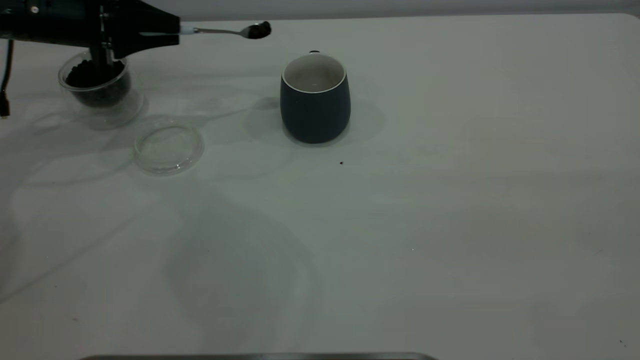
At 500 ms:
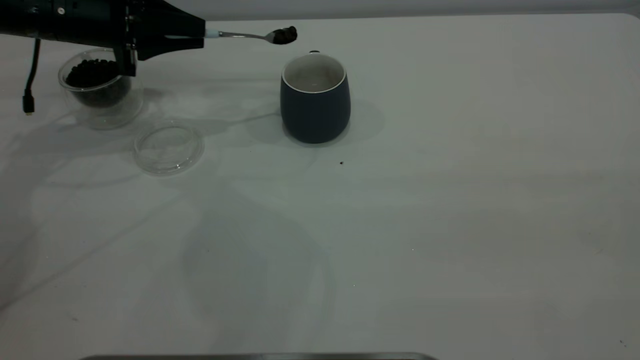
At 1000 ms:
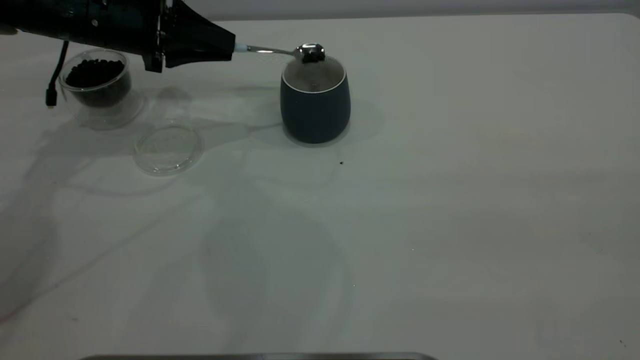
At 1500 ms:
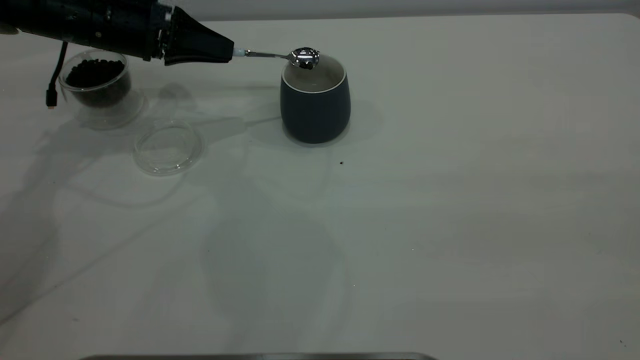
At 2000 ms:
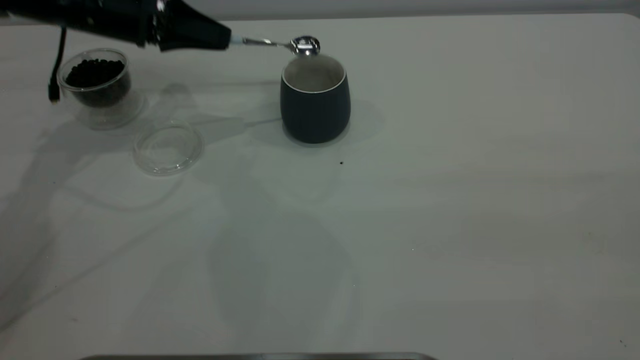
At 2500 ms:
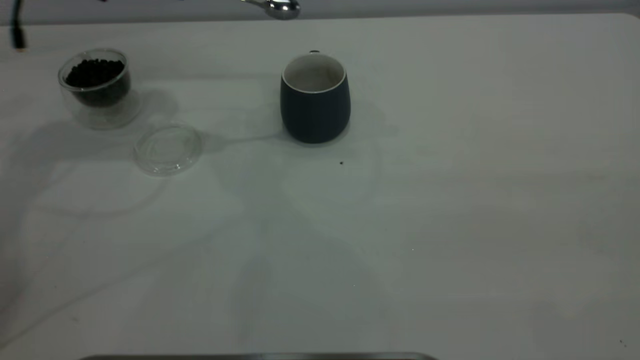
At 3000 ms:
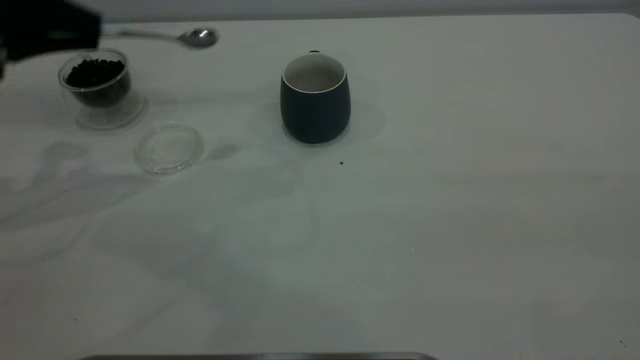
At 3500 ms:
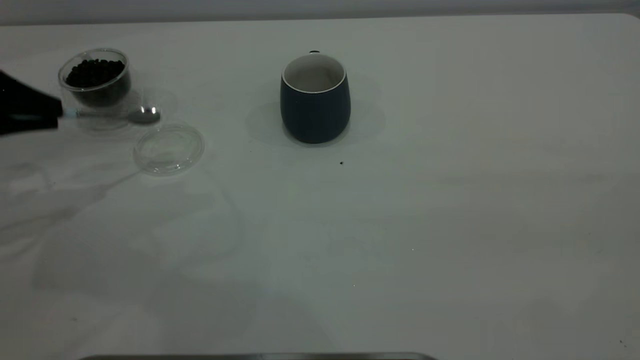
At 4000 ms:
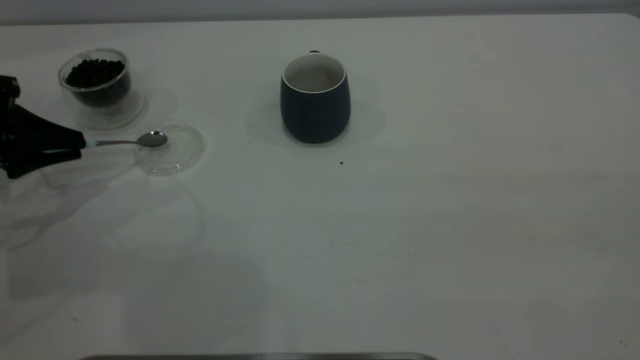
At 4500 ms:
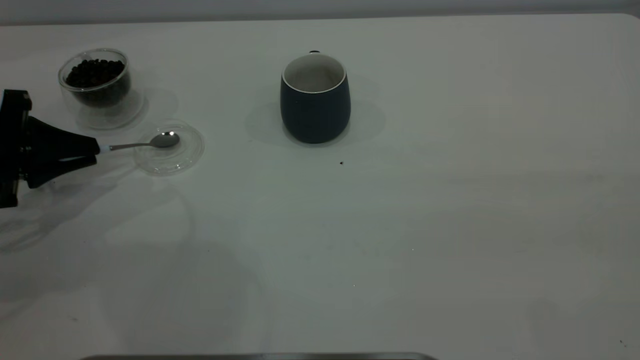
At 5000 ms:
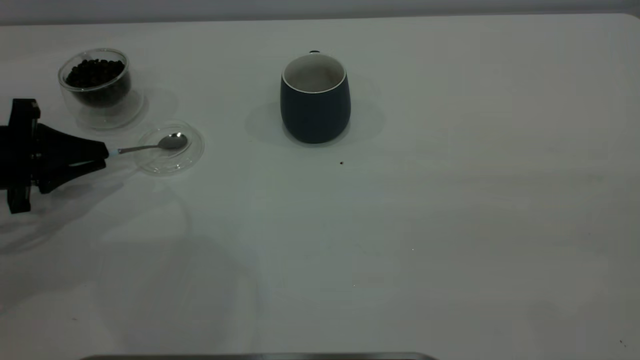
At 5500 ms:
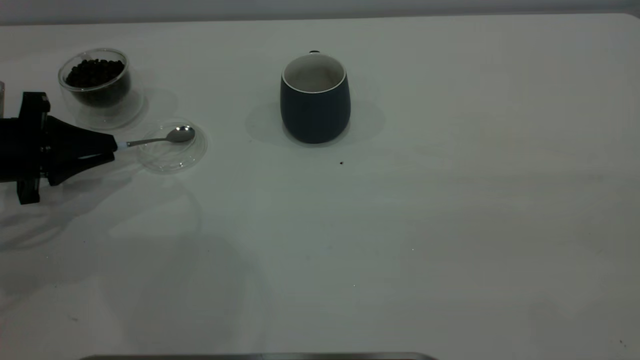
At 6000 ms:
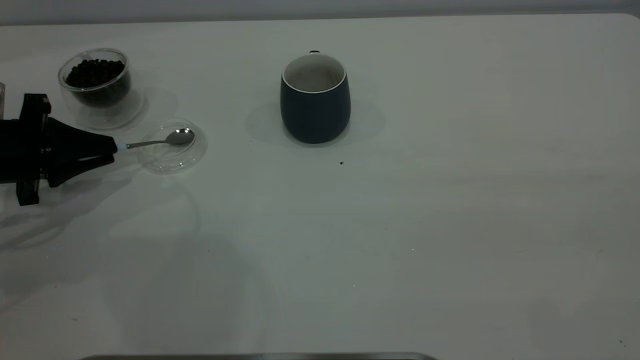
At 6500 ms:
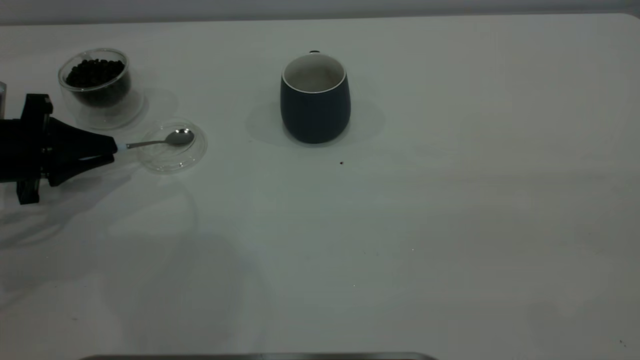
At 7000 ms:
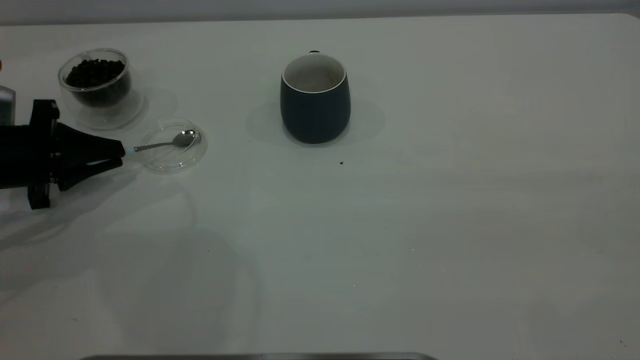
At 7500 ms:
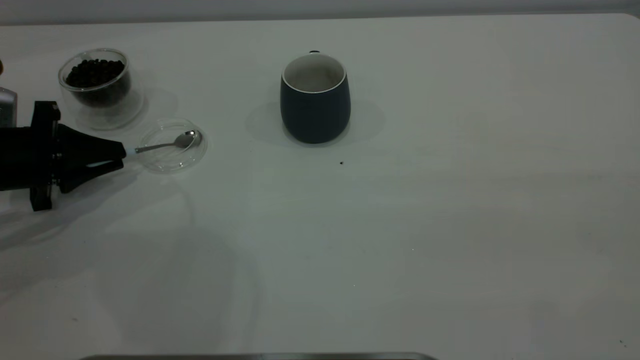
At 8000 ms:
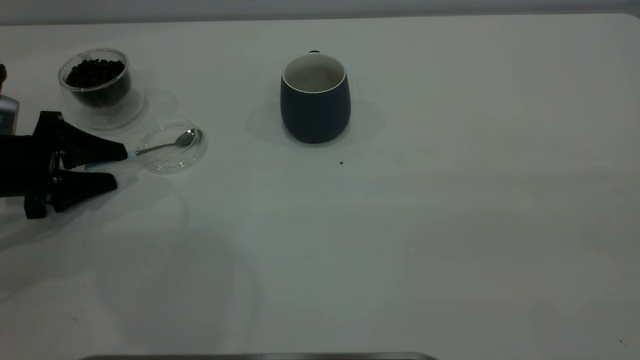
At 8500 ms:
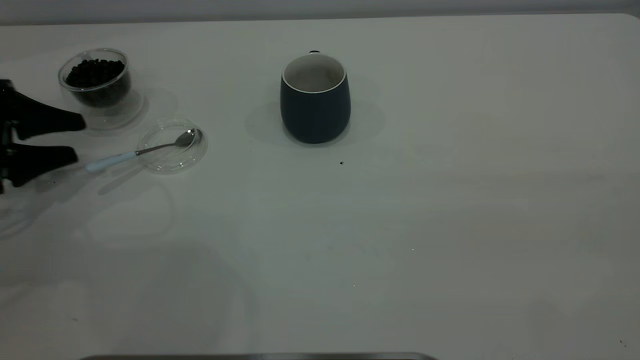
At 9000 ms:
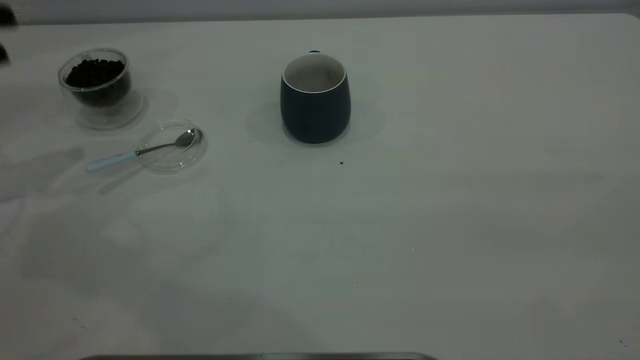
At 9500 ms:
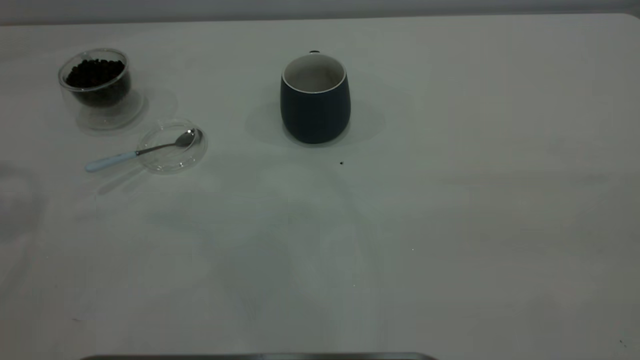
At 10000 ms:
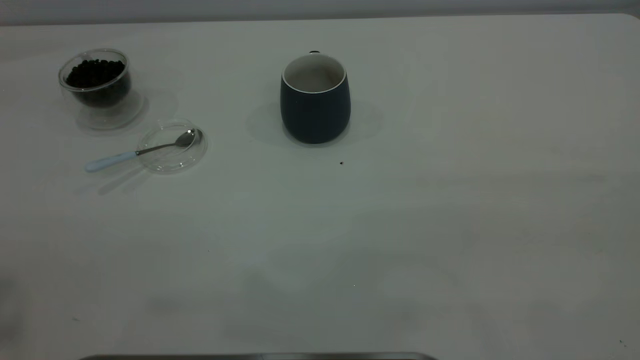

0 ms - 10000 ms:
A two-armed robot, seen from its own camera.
Task of the whole recording: the right gripper place the grey cup in the center of the table, the left gripper take the blue spoon from the cup lid and scoop out the coffee beans from the coffee cup and put them into the grey cup, the left gripper put the spoon back into the cup lid.
Step, 0 ms - 2000 ms: Scoop a spoonful of beans into the cup.
Step, 2500 ms - 8500 ms: Place the spoon back in its original place.
0 ms - 2000 ms: The left gripper is displaced to the right by approximately 5 cm.
2000 ms - 4000 ms: The left gripper heads backward, to the left and downward, covering about 20 cm.
4000 ms - 6000 ms: The grippers stay close to where they were, moving slightly.
6000 ms - 8000 ms: The left gripper opens its fingers.
8000 ms - 10000 ms: The left gripper moves upward, roughly 50 cm.

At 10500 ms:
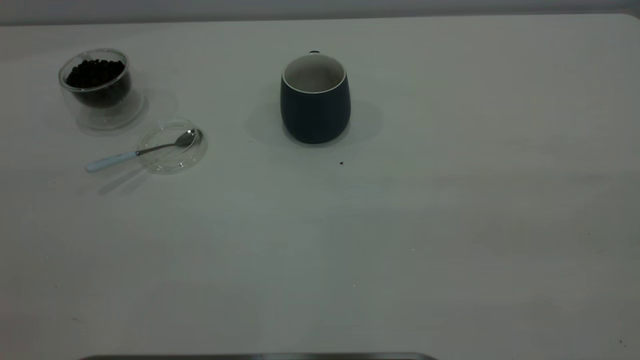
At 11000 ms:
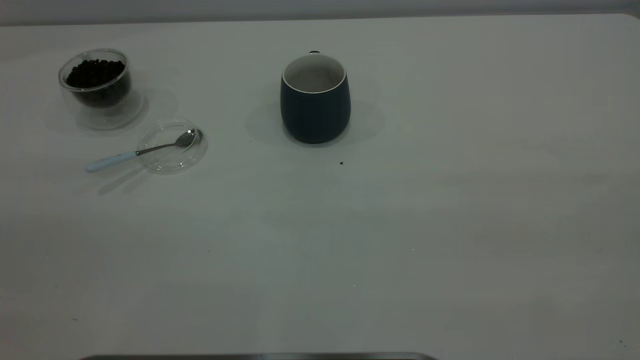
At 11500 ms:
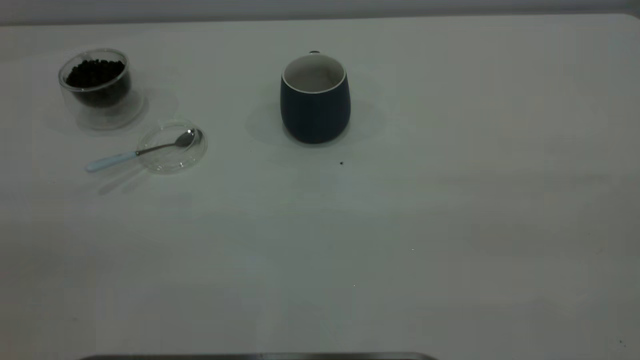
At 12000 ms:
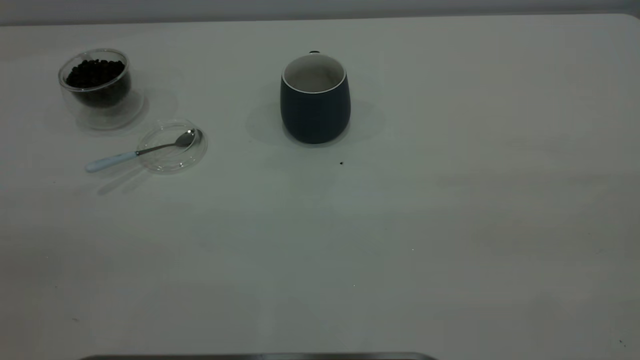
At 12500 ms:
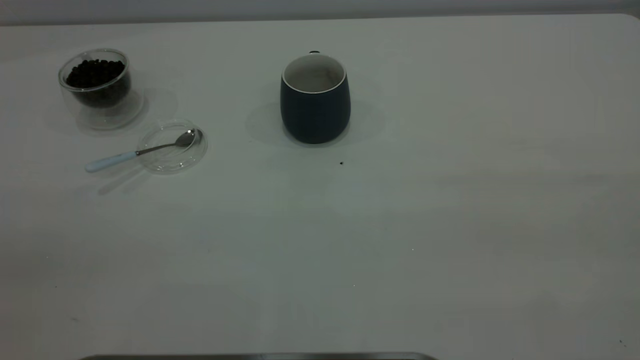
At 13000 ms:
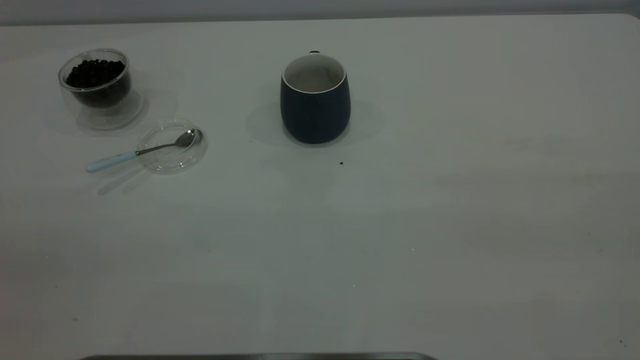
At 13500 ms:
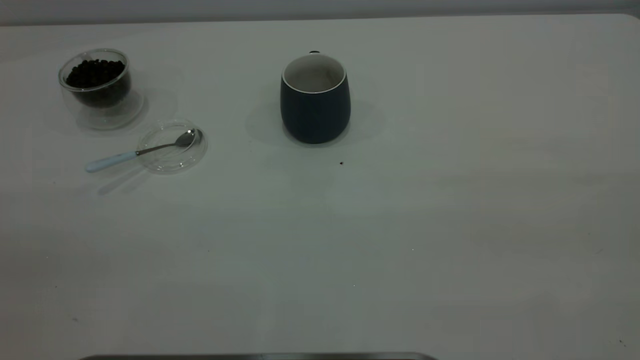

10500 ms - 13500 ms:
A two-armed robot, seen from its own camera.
Task of the whole recording: the right gripper place the grey cup in the center of the table, the left gripper take the blue spoon from the cup lid and scoop out the coffee beans from the coffee cup and put them into the grey cup, the left gripper put the spoon back into the cup lid.
12000 ms - 13500 ms: Both grippers stay about where they are.

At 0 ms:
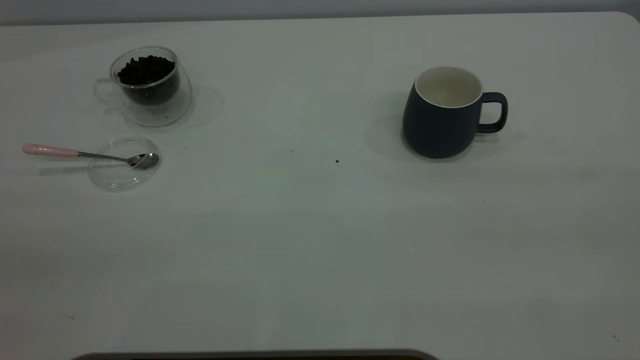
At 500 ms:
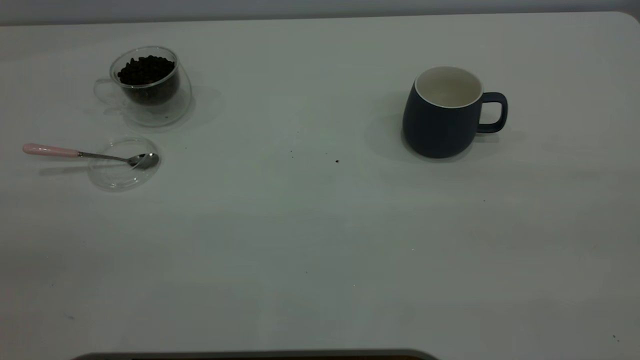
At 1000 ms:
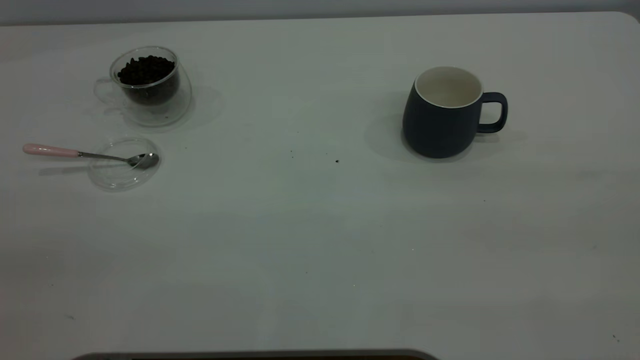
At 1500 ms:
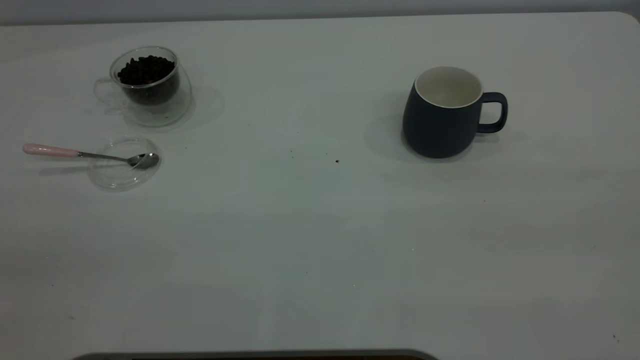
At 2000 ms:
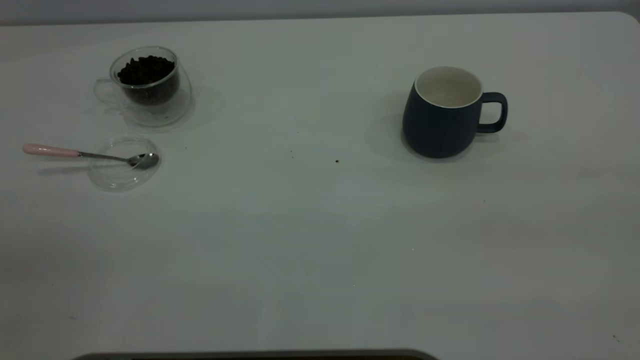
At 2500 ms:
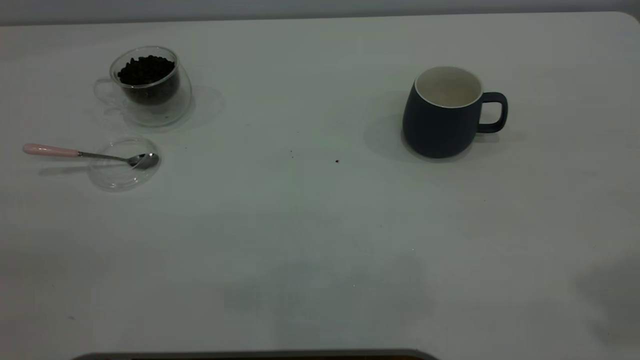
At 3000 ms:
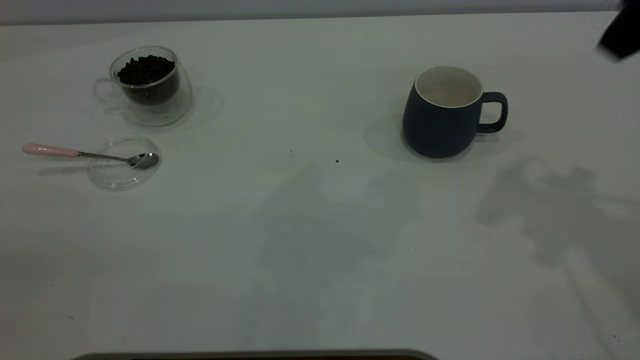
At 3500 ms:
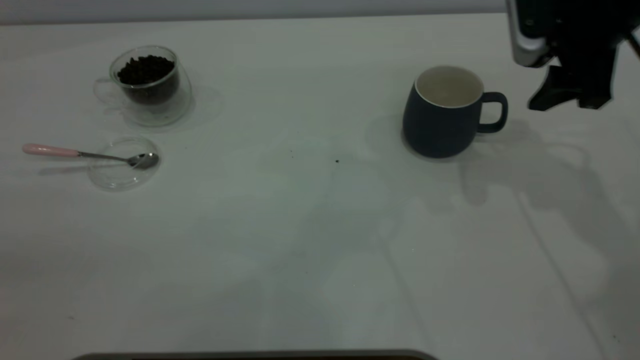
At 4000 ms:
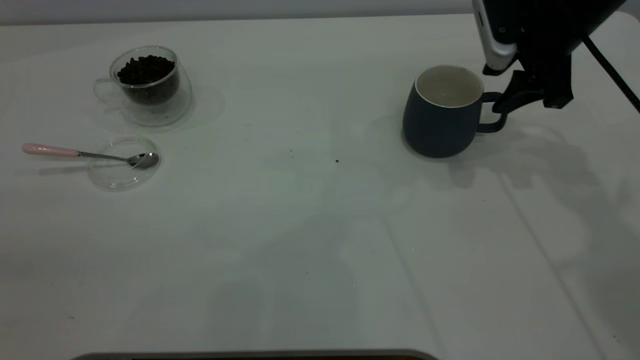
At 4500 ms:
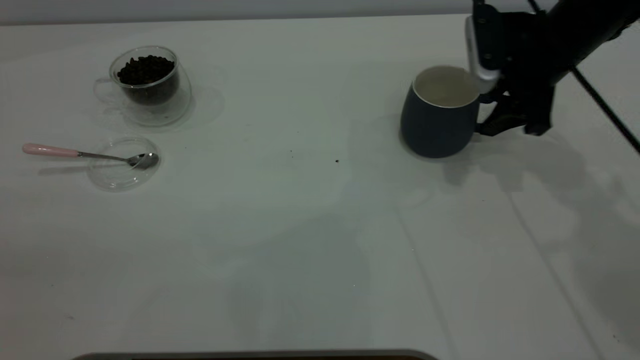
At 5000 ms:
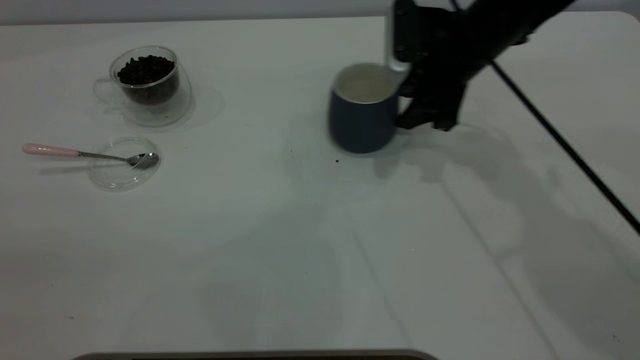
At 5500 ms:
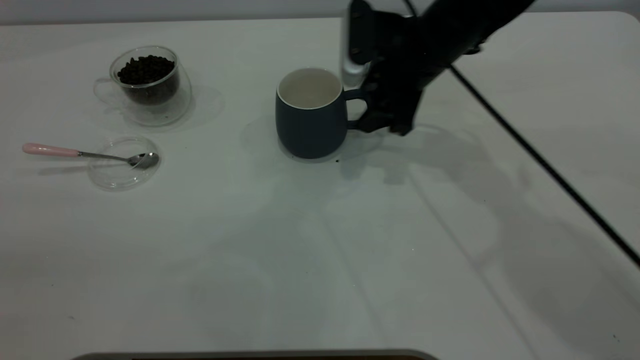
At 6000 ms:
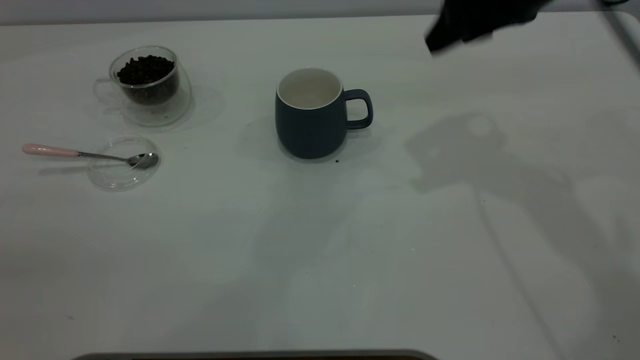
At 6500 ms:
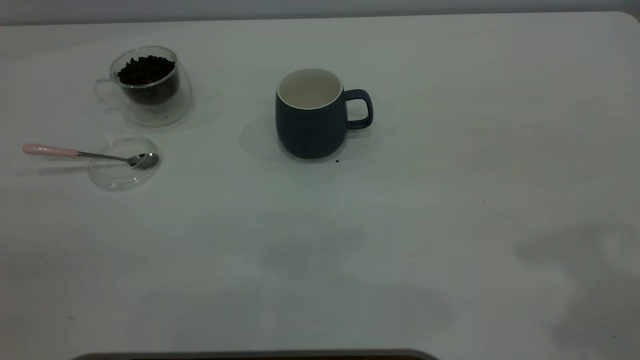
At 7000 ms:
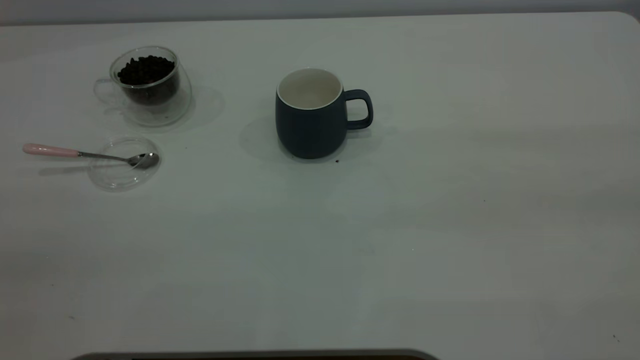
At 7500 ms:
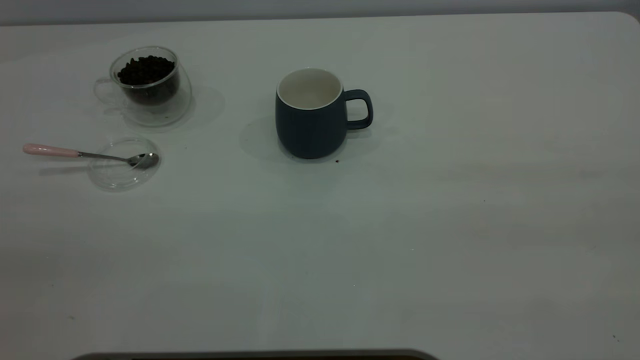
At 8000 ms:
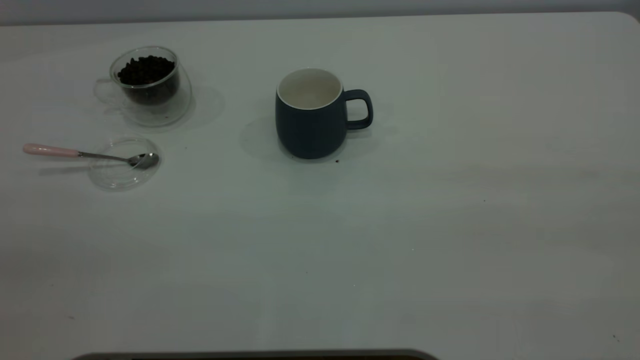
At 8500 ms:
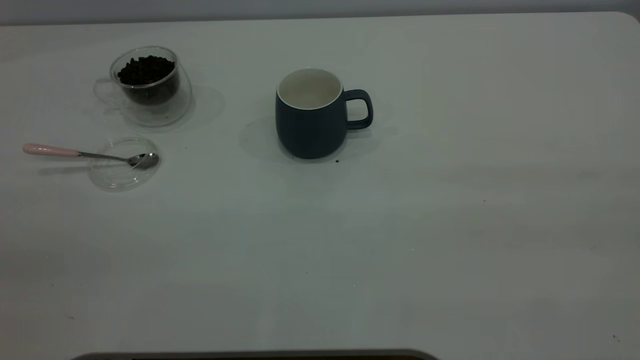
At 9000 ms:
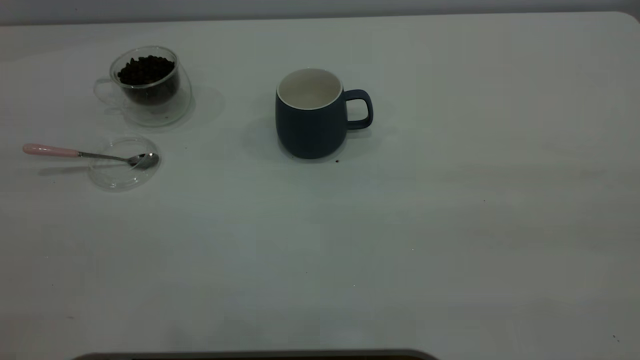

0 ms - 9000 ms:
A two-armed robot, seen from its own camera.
Task of the whole recording: the right gripper place the grey cup in the center of the table, the left gripper take the pink spoon from the cup lid and scoop out the coffee beans from the coffee cup and put them into the grey cup, the left gripper put the spoon back into the cup lid.
Step, 0 ms - 5500 ms: Move the cup to the center of view.
2000 ms - 4500 ms: The right gripper moves forward and downward, roughly 50 cm, and closes.
4500 ms - 7000 ms: The right gripper heads backward and upward, covering approximately 40 cm.
